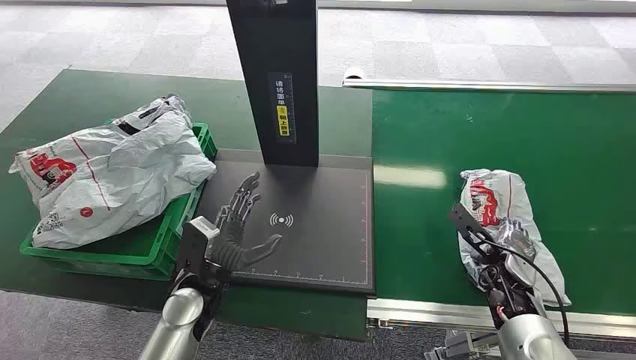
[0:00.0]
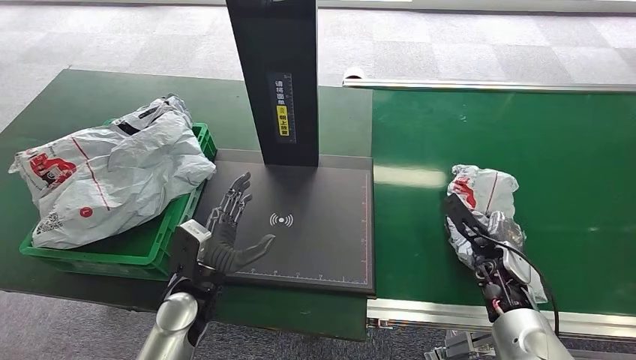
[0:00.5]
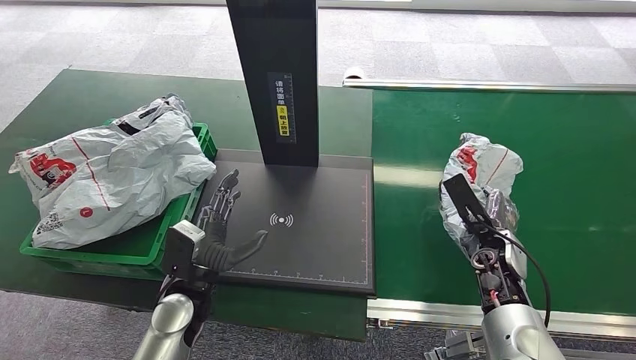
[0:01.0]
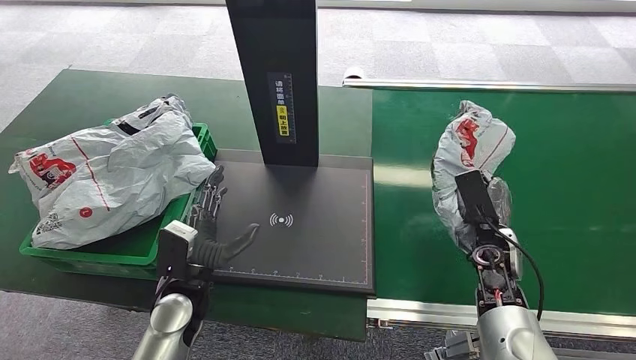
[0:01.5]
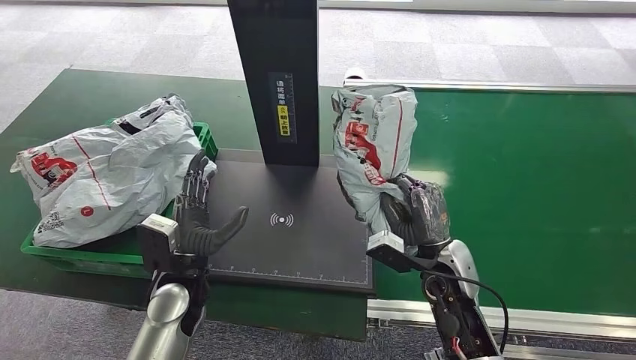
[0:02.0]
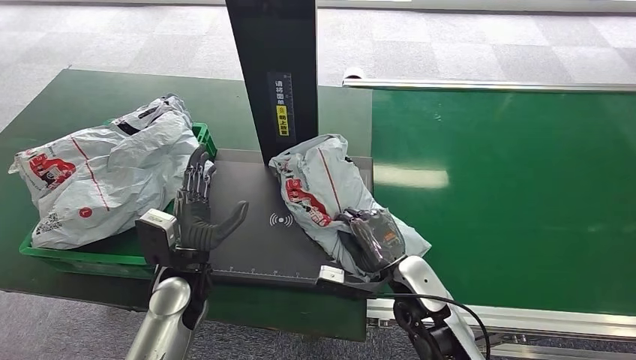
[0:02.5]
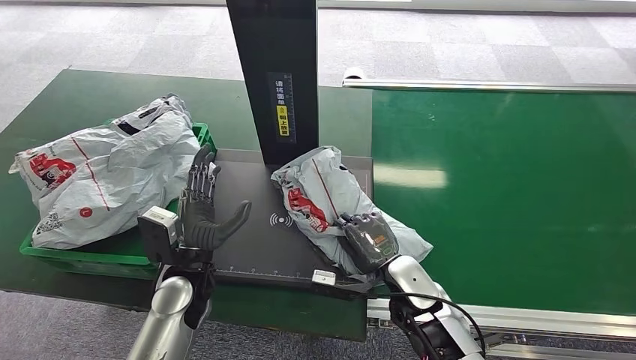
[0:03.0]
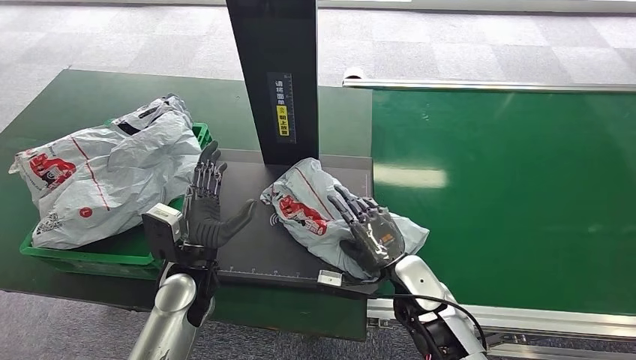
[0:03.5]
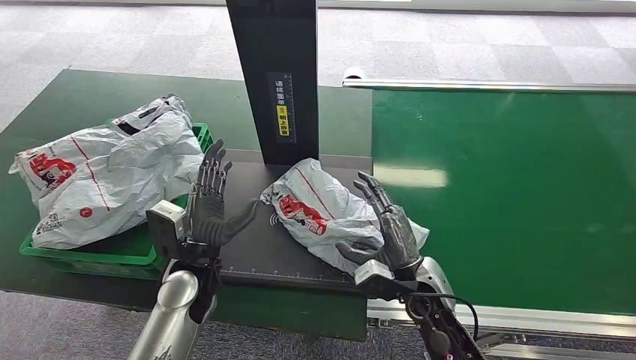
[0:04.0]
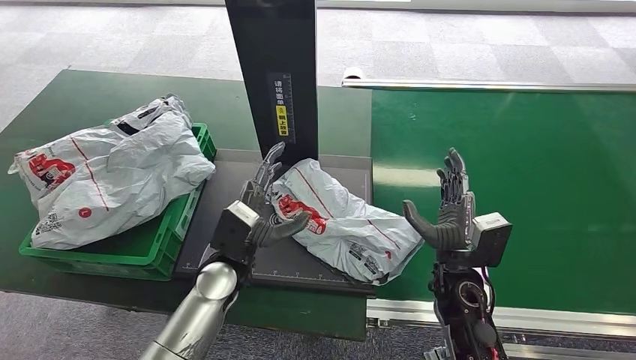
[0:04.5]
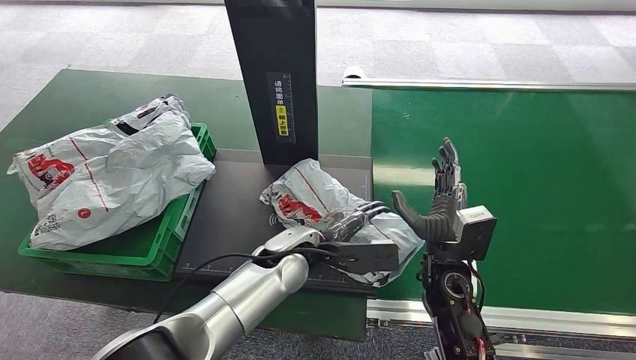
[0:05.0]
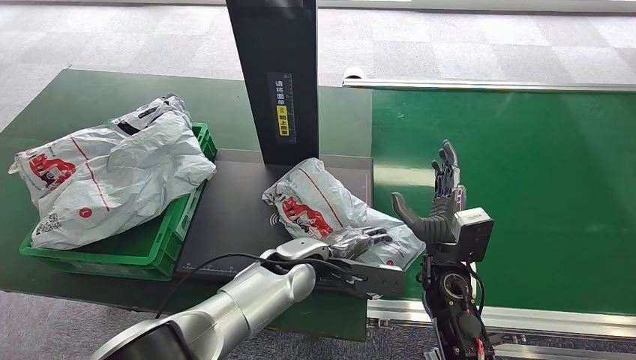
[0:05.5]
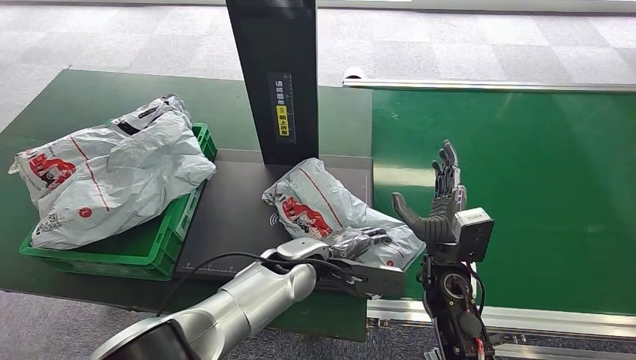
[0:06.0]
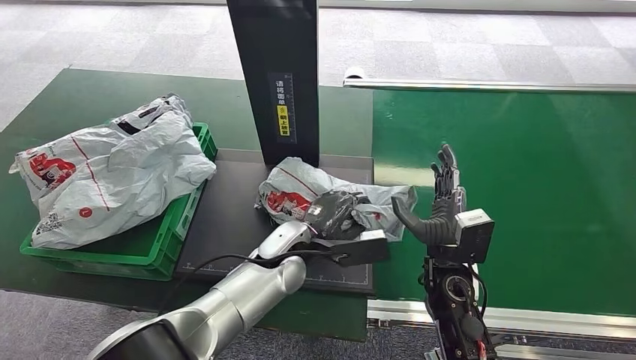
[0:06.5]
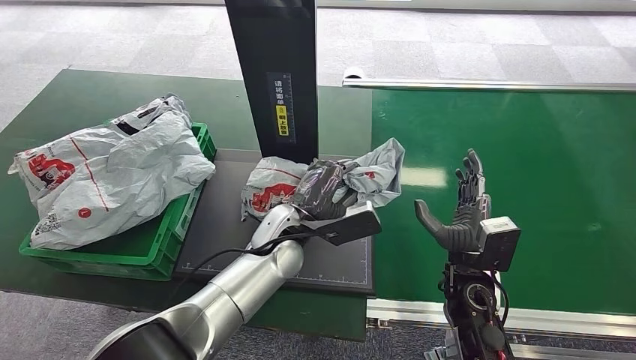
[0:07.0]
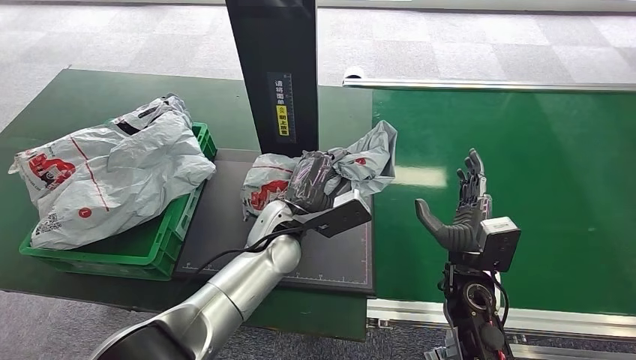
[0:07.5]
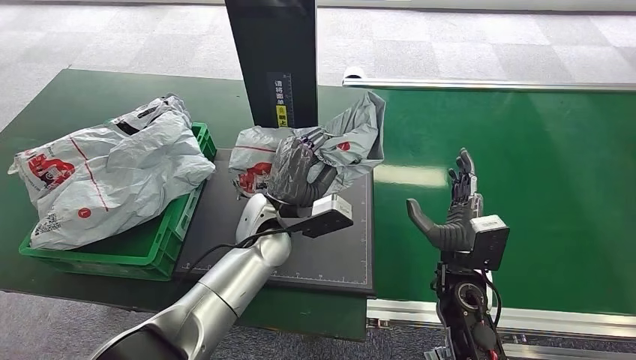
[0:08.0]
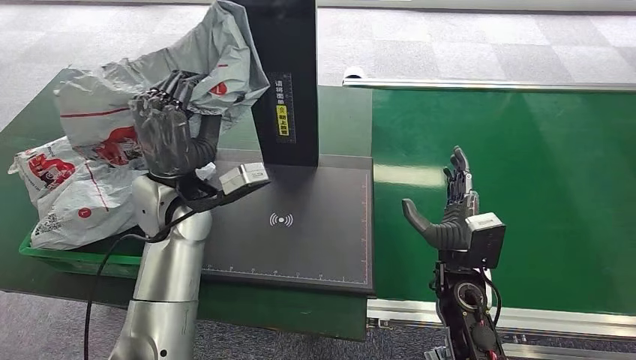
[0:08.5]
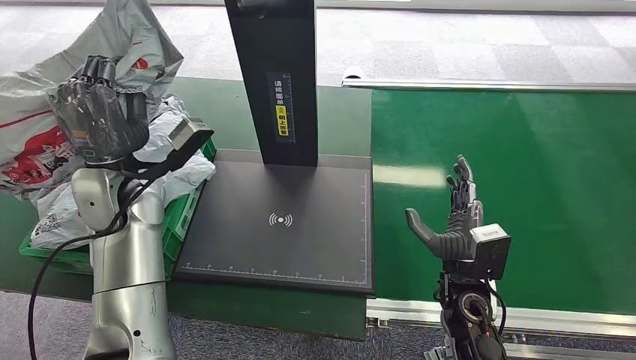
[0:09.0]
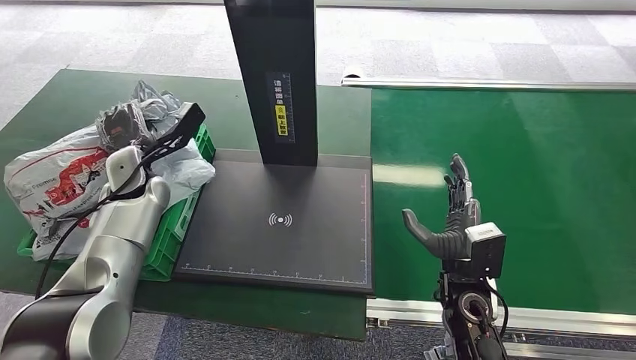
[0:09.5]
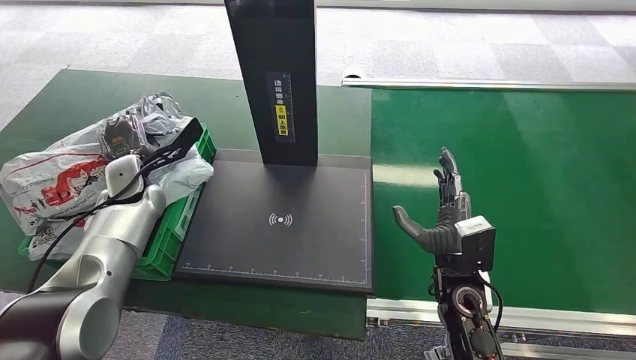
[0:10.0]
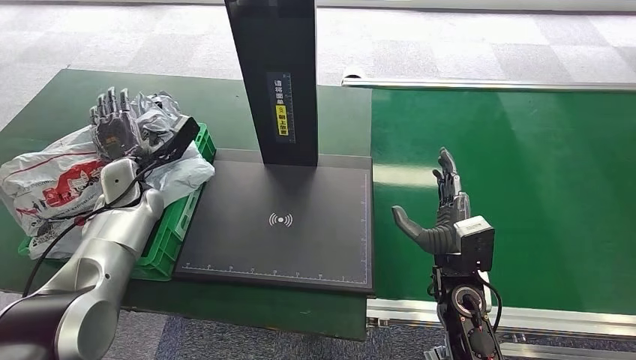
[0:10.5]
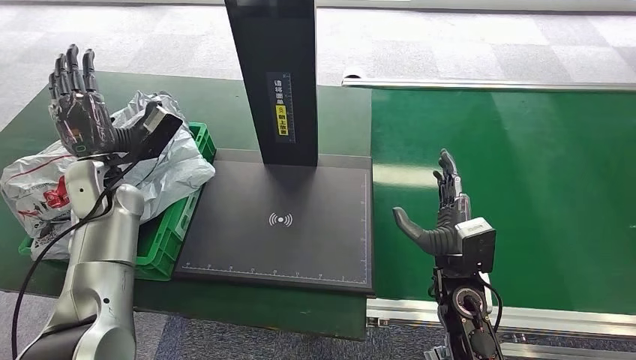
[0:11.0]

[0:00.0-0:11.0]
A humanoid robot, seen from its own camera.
Step, 0:00.0 to 0:01.5: Pick up the package from the conveyor belt.
Step, 0:02.0 to 0:04.0: Place the package onto the inbound machine.
Step, 0:04.5 to 0:08.0: Pick up the package from the inbound machine.
Step, 0:08.5 to 0:11.0: Place the package into the parcel locker.
0:02.0 to 0:03.5: The right hand moves approximately 5 cm.
0:03.5 to 0:05.5: The left hand moves to the right, some 15 cm; the right hand ends up some 5 cm from where it was.
